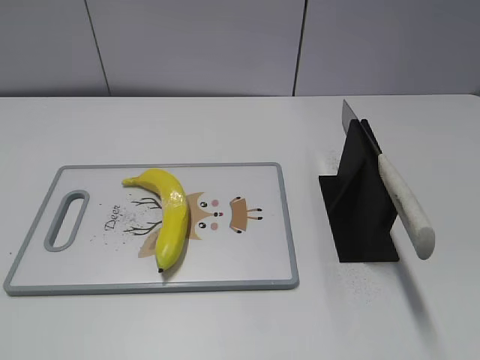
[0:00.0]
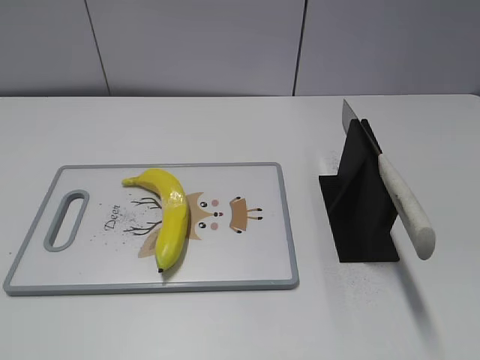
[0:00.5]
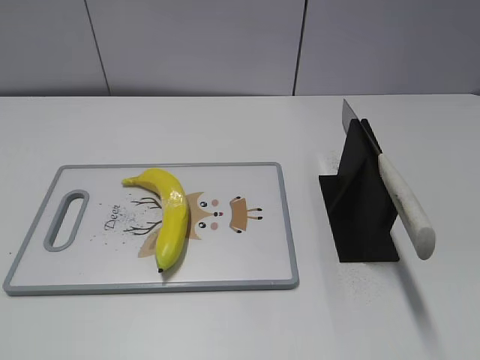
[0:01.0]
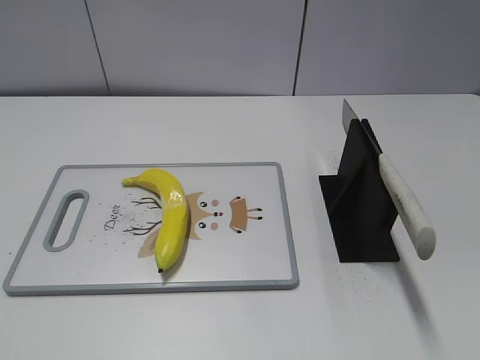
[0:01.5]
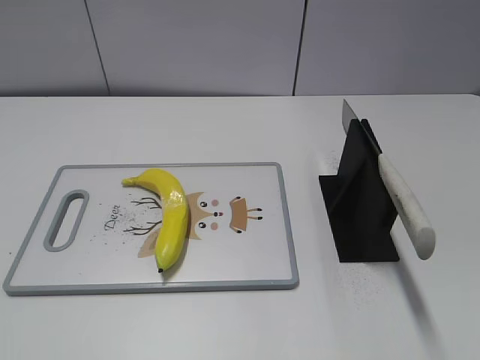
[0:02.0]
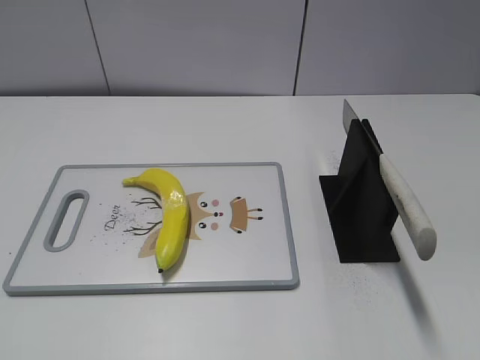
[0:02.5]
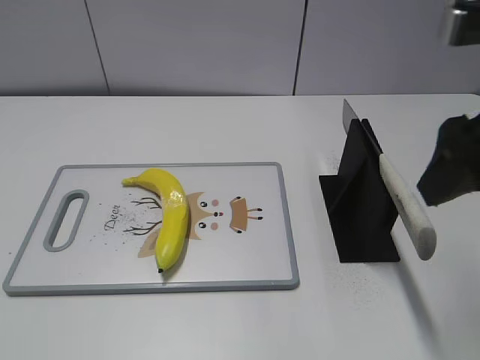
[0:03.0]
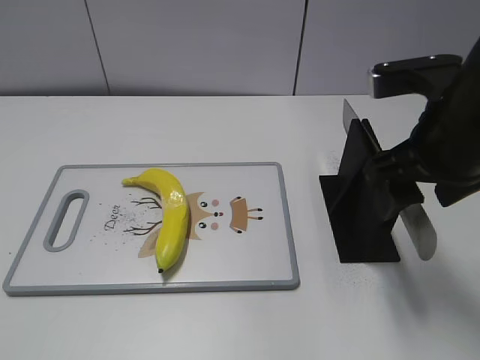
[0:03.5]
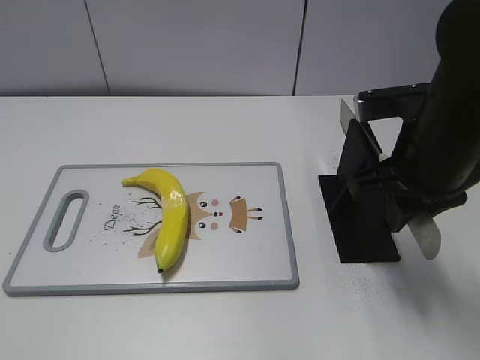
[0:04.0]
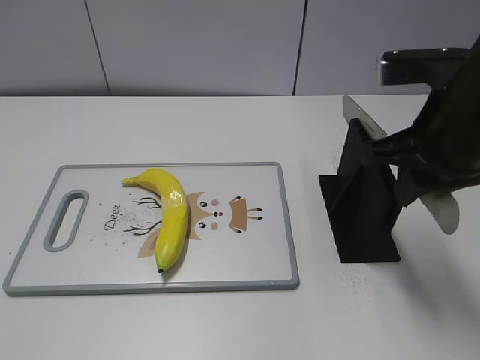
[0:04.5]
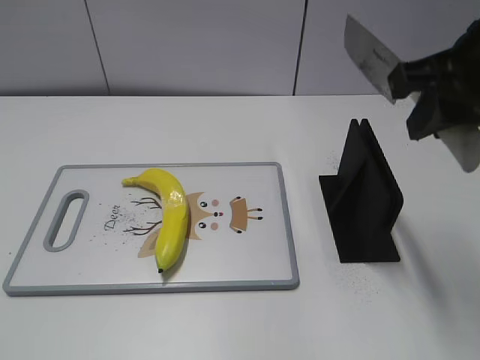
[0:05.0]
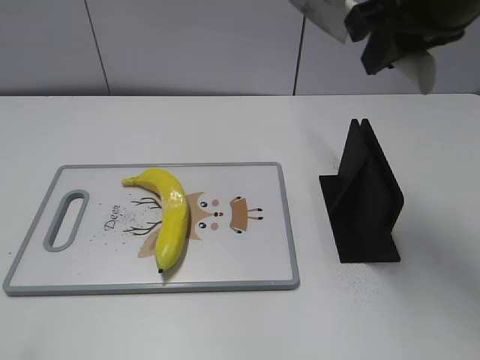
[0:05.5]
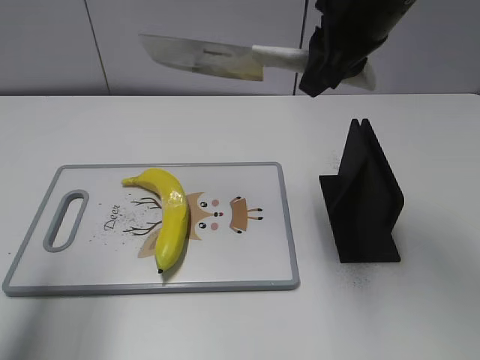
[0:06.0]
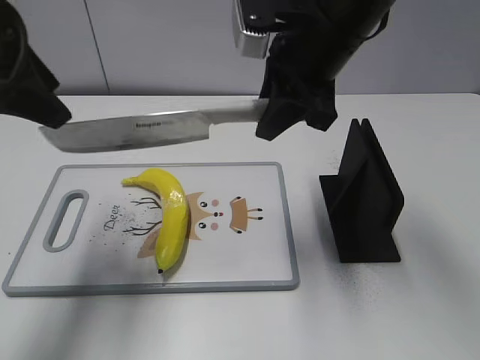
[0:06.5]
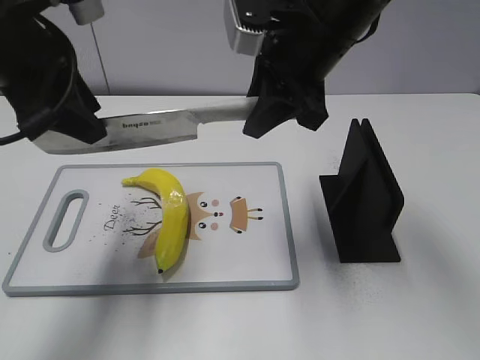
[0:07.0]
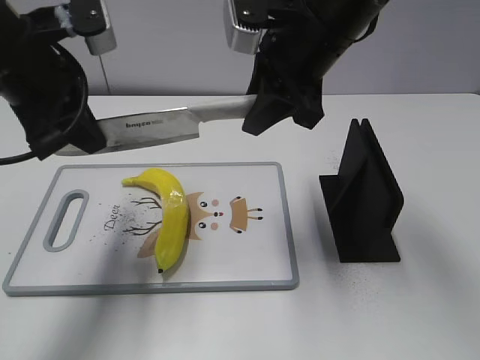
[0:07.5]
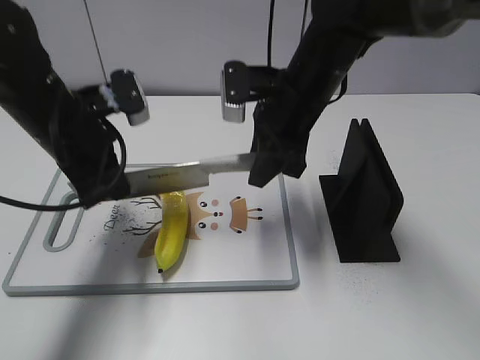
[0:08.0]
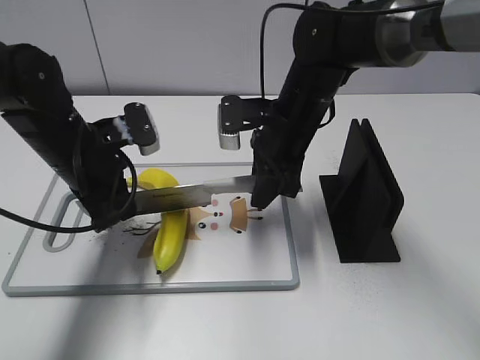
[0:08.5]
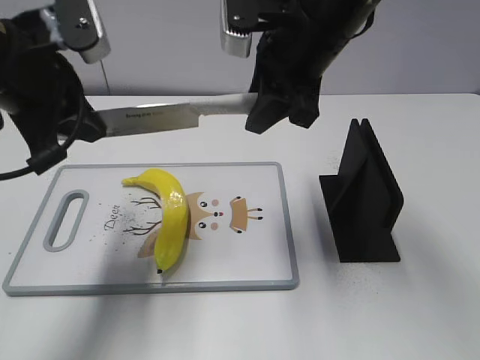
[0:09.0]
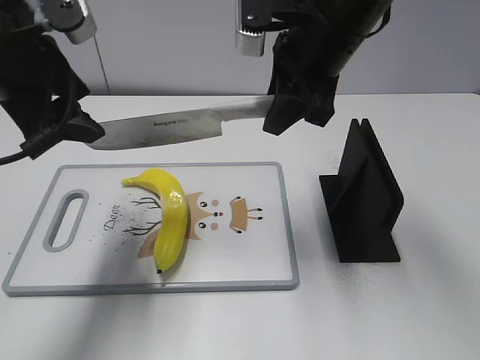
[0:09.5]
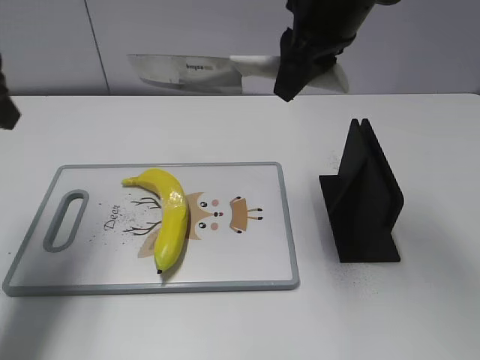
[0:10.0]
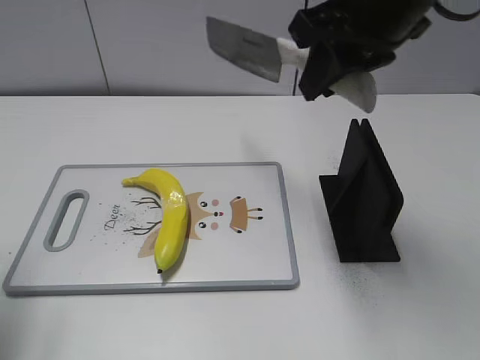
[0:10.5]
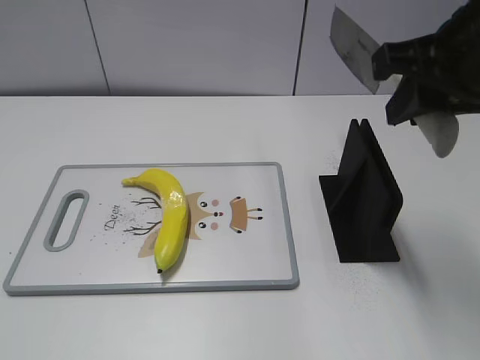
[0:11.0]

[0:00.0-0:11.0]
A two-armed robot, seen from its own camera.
Task of the whole recording: cut plastic banana.
Step, 0:00.0 to 0:04.5: Grab the knife handle with your right hand.
Step, 0:05.0 to 0:08.5: Lift the knife with your right hand.
Step, 0:09.0 to 0:10.0: Cut the banana with your right hand.
0:02.0 to 0:03.5: The right gripper travels forward, to the left and downward by about 20 cm.
0:03.5 to 0:05.5: The right gripper heads upward, covering roughly 10 cm, and closes its fingers.
0:05.5 to 0:07.5: The left gripper shifts about 25 cm forward and to the right, and closes its fingers. Meanwhile the right gripper moves to the left, downward and forward, approximately 10 cm.
0:07.5 to 0:09.0: The left gripper travels downward and back again, roughly 15 cm each way; the right gripper travels downward and back again, roughly 15 cm each way.
0:09.0 to 0:11.0: The left gripper shifts some 25 cm backward and to the left, and opens. Meanwhile the right gripper moves backward and to the right, approximately 15 cm.

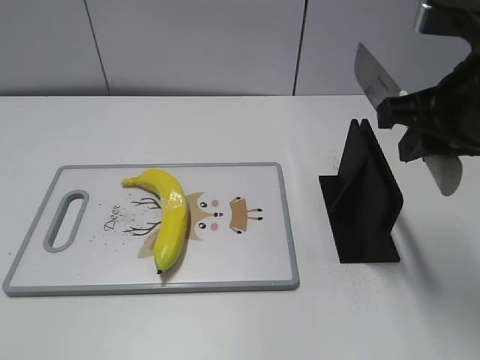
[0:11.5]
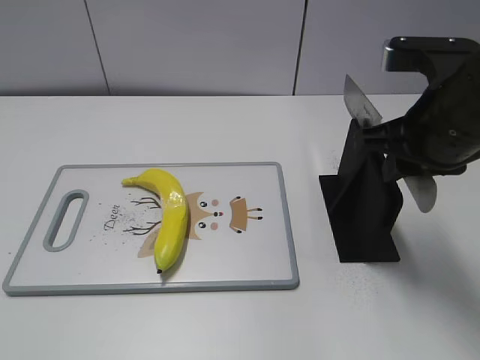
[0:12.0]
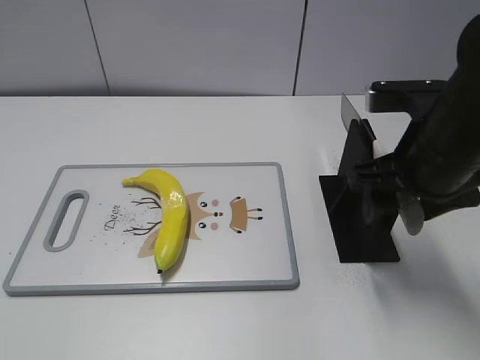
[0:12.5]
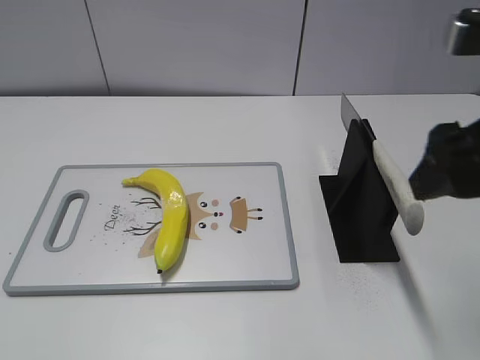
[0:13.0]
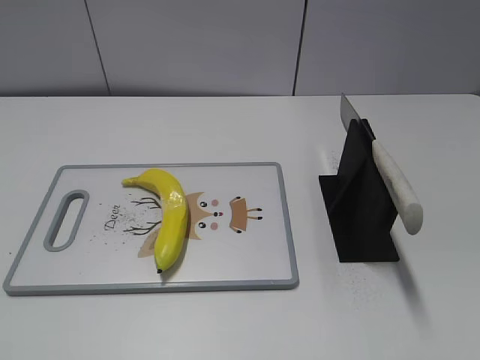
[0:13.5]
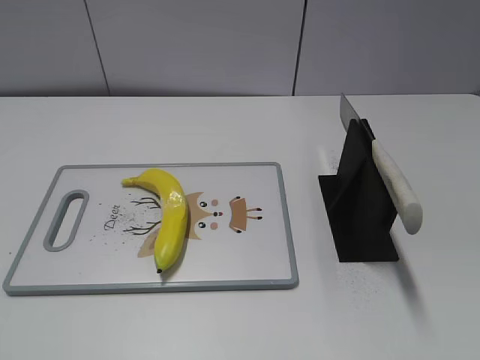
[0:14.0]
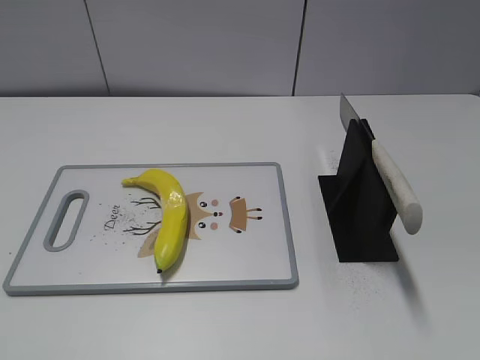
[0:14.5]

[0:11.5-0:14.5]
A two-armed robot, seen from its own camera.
Task of the whole recording: cut plastic banana.
0:11.5 to 0:13.0: The right gripper travels downward and back again, some 5 cm each way, and opens up.
0:13.0 to 0:14.5: The right gripper heads backward and to the right, covering about 25 cm.
